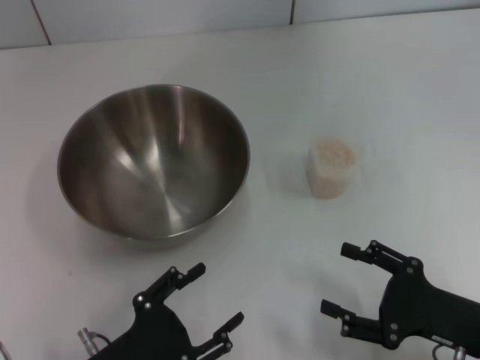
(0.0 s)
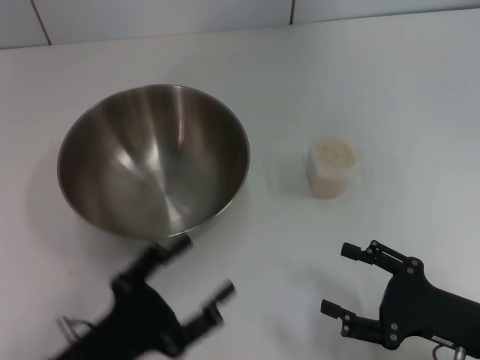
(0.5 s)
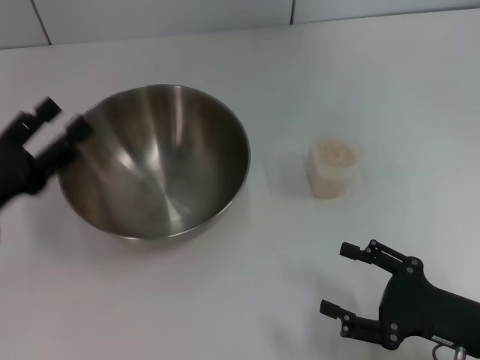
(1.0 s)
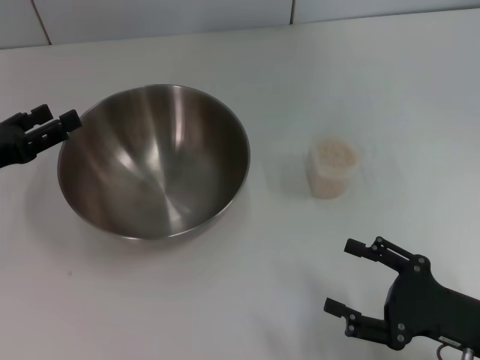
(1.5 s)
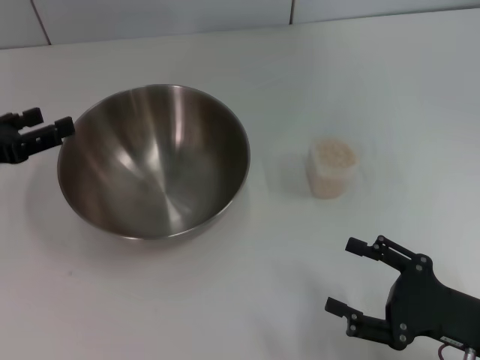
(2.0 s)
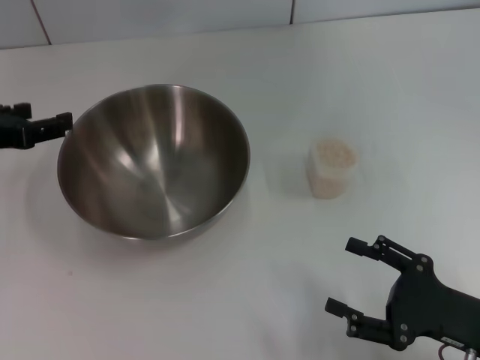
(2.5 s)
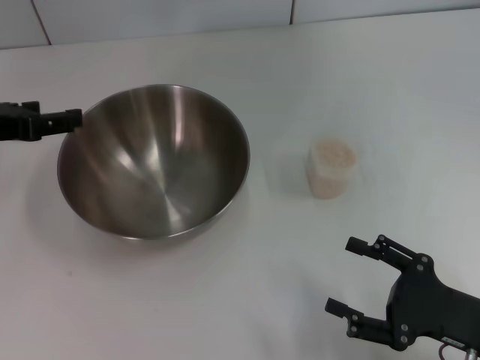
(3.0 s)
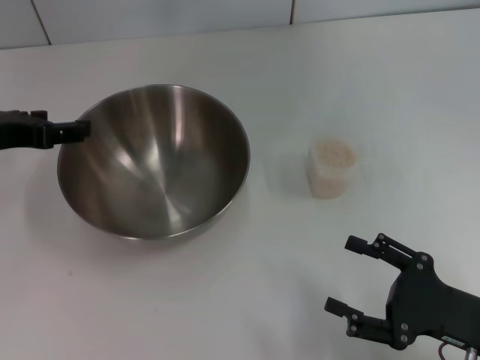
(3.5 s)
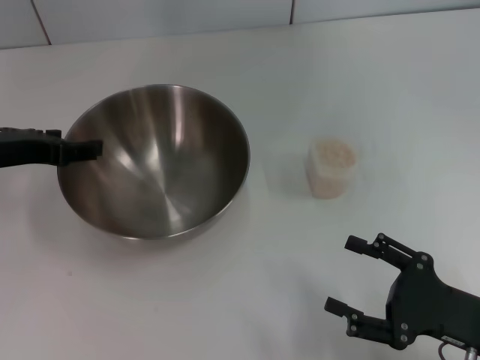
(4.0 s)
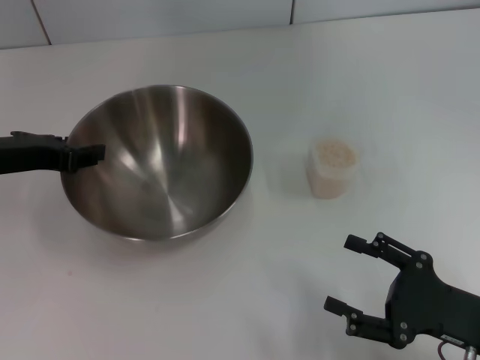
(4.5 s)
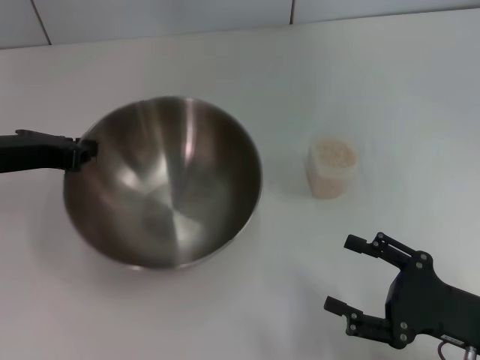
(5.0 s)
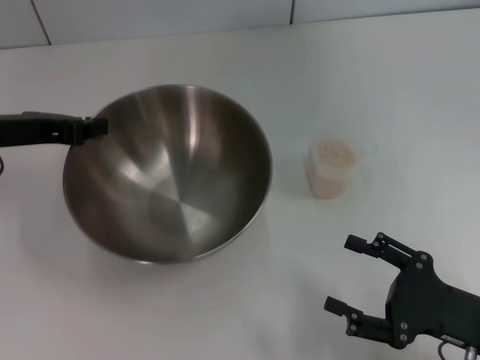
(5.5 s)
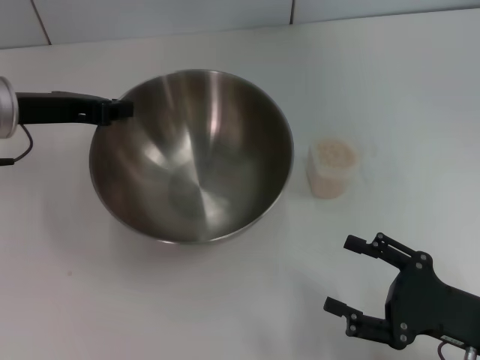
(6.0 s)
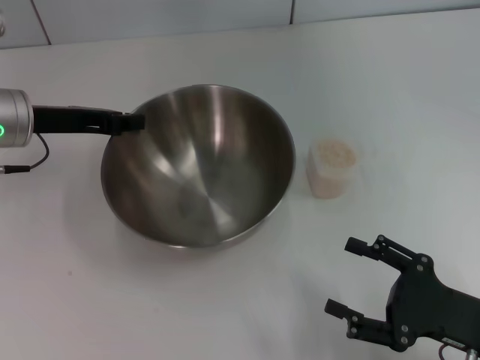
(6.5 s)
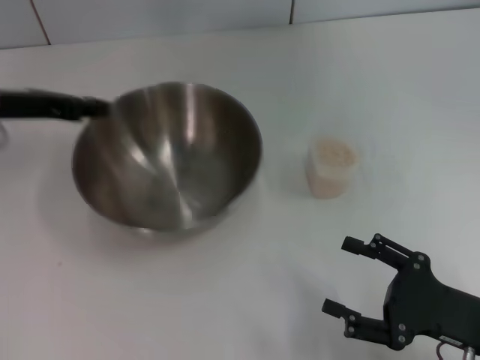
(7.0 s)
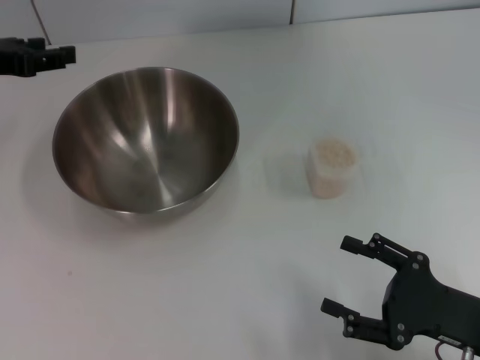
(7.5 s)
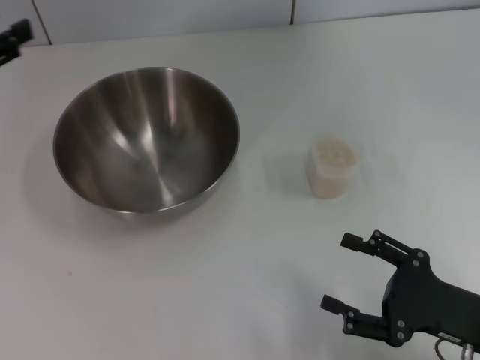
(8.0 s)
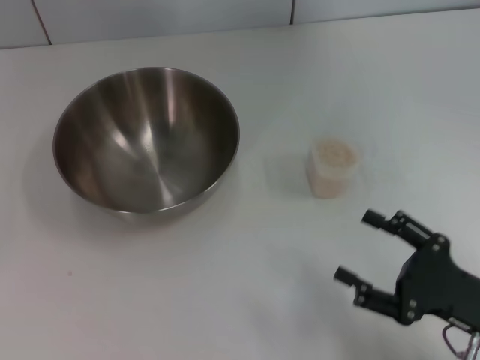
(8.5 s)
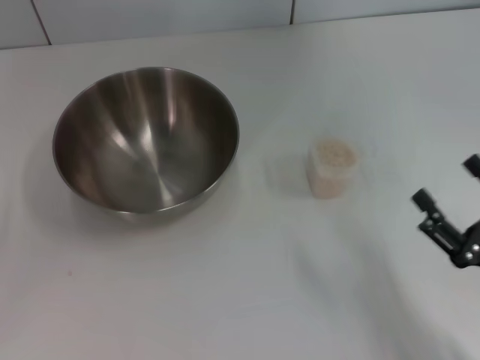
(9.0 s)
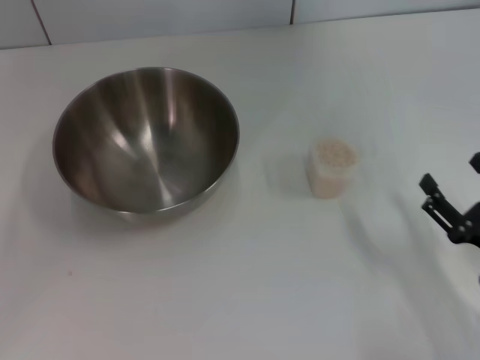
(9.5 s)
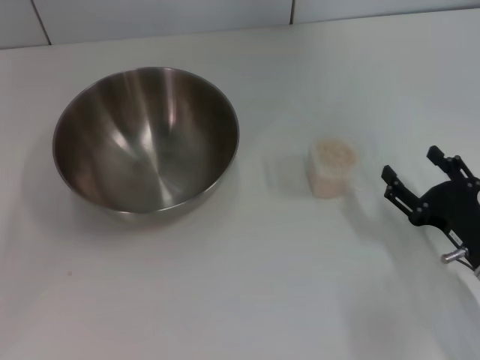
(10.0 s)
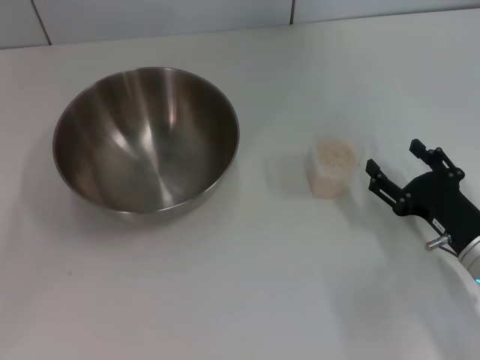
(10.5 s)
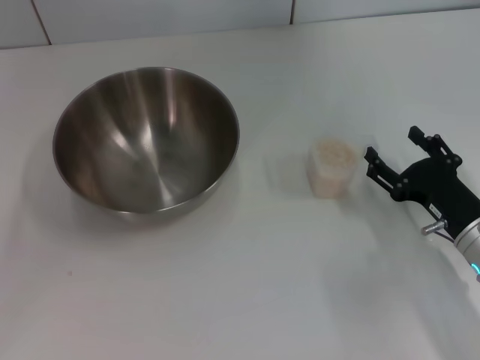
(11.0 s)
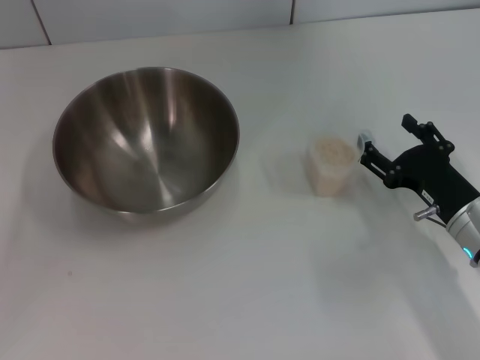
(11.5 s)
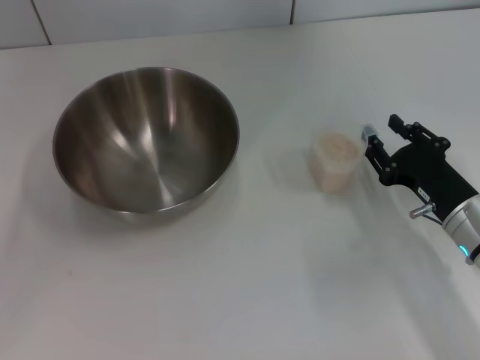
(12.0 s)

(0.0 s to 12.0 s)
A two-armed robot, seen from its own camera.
Task of the whole recording: Place the bowl in the middle of the table with one hand and pour the rice from the grain cup into it with the other hand.
Step, 0.0 s - 5.0 s: Pick up the bowl with the left gripper.
Step, 5.5 s - 7.5 s: Place the bowl in the center of view with the left gripper.
0.0 s - 2.0 s: The left gripper goes roughly 25 cm forward, to the left and upward.
2.0 s - 4.0 s: The left gripper heads to the right, covering roughly 5 cm.
4.0 s - 6.0 s: The left gripper moves some 5 cm, and closes.
6.0 s - 8.0 s: The left gripper shifts about 10 cm to the left, and opens up.
8.0 s - 10.0 s: The right gripper shifts by some 5 cm. The left gripper travels downward and backward by about 20 cm.
10.0 s - 12.0 s: The right gripper is displaced forward by about 5 cm.

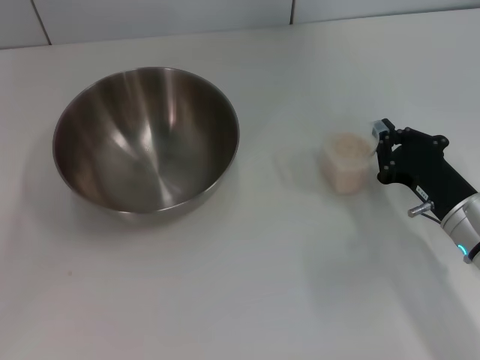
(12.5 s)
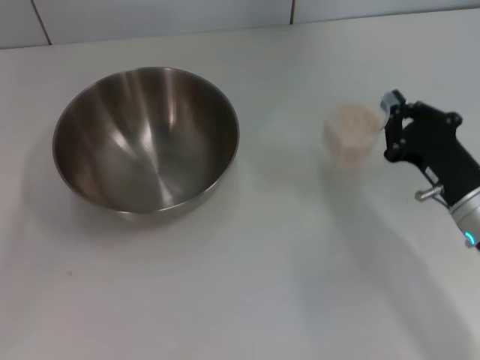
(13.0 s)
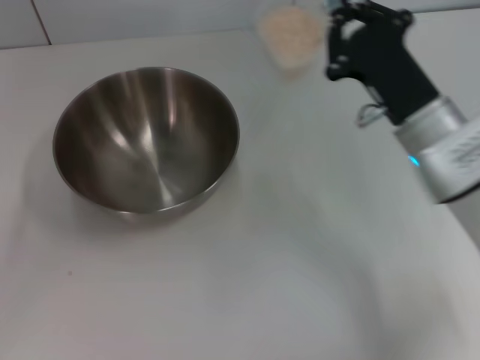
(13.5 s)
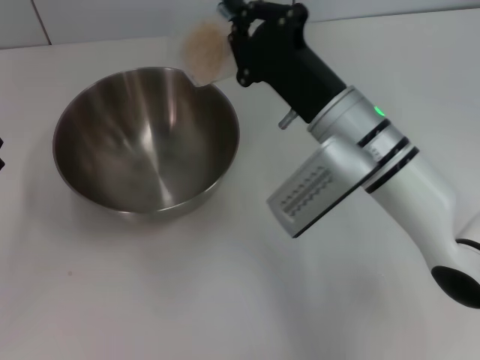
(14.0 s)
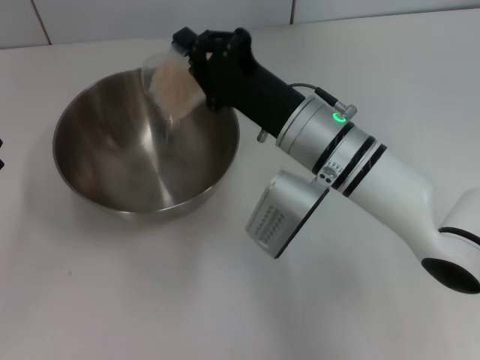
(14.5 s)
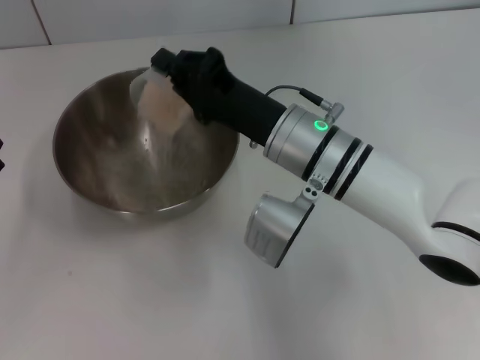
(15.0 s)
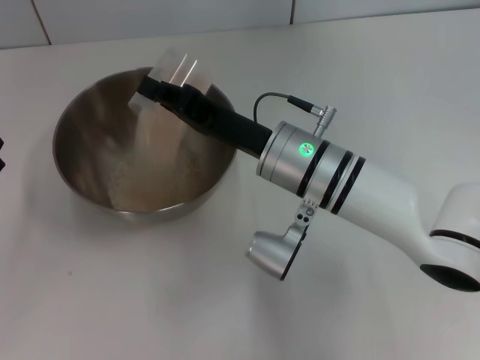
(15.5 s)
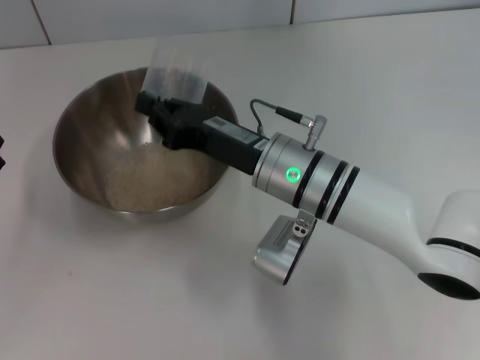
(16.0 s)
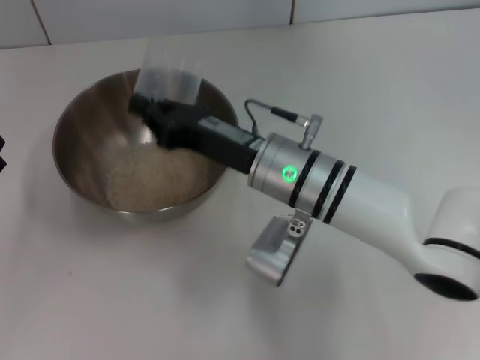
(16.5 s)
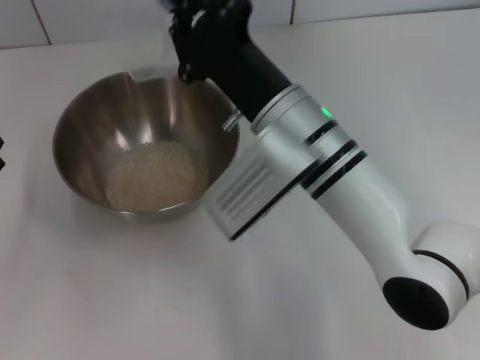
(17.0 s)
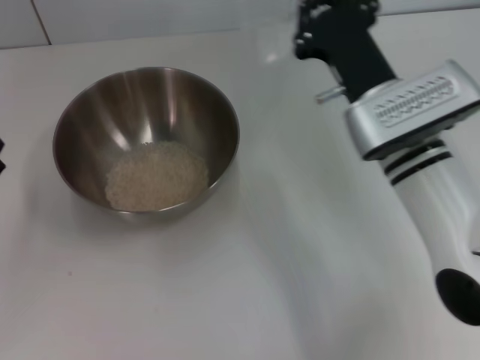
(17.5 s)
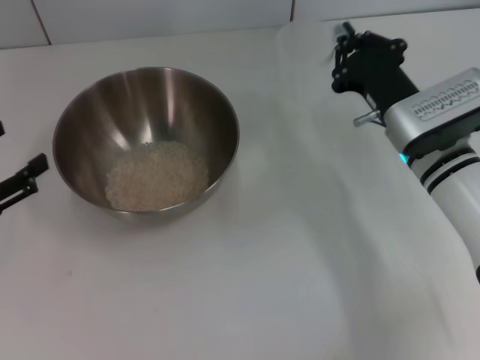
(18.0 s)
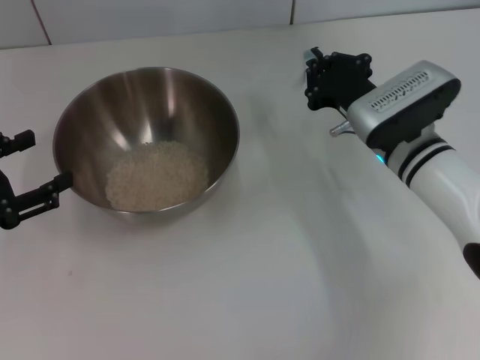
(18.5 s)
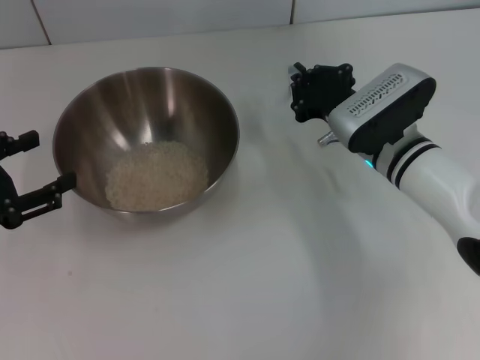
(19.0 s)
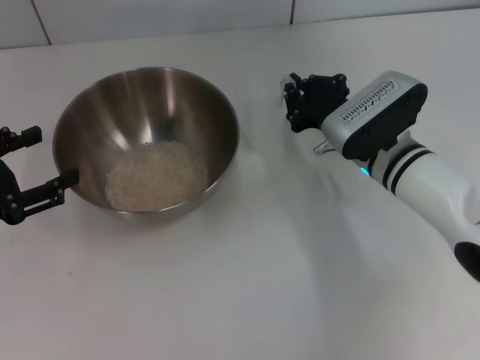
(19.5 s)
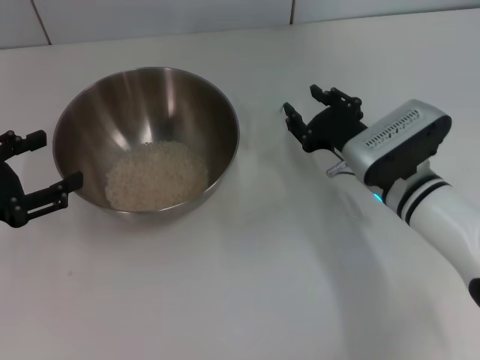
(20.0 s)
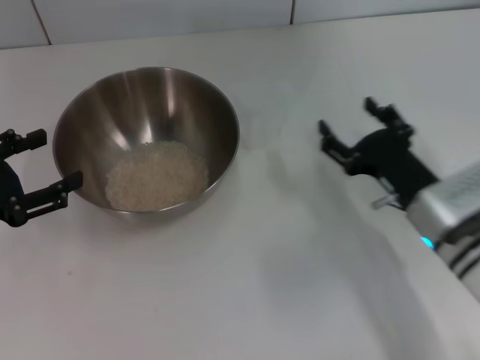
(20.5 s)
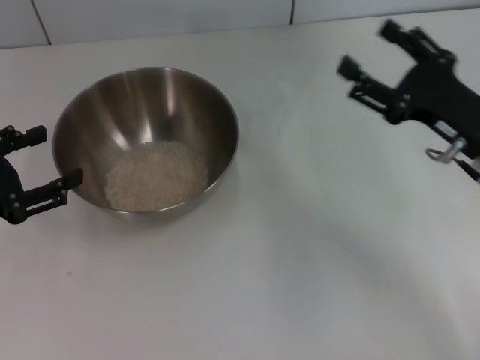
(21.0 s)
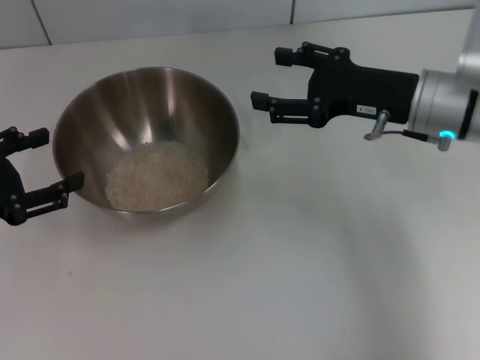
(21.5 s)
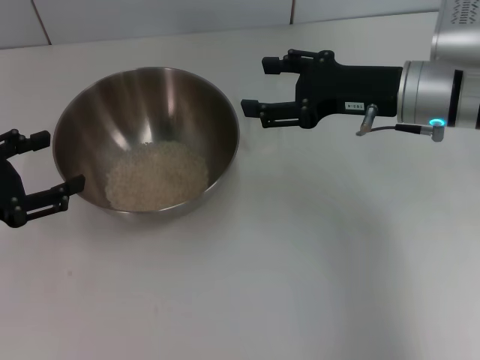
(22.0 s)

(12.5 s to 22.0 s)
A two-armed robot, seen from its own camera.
Task of the whole recording: Place the bowl in the middle of the table with one hand and pour the rice from the grain cup into it with the other hand.
Step, 13.5 s - 17.0 s: Pour the rice from the cup into the bowl with the right gripper.
Step, 17.5 s - 20.5 s: Place the cup on the table with the right gripper.
12.5 s - 14.5 s: The right gripper goes about 20 cm to the left, upward and forward.
16.5 s - 18.0 s: The right gripper travels to the right by approximately 15 cm; the left gripper goes some 5 cm upward.
18.0 s - 20.0 s: The grippers make only small movements.
20.0 s - 22.0 s: The right gripper is displaced upward by approximately 10 cm, and opens its fingers.

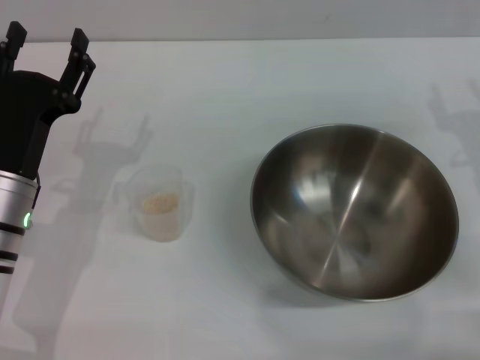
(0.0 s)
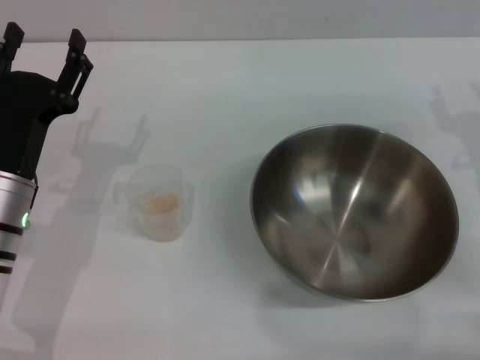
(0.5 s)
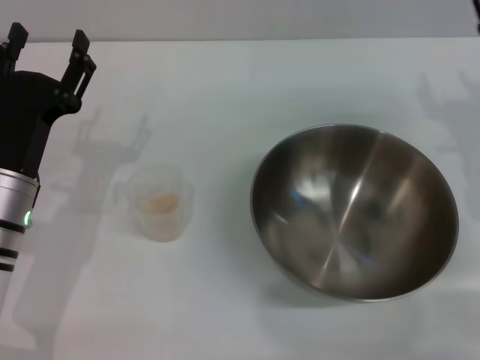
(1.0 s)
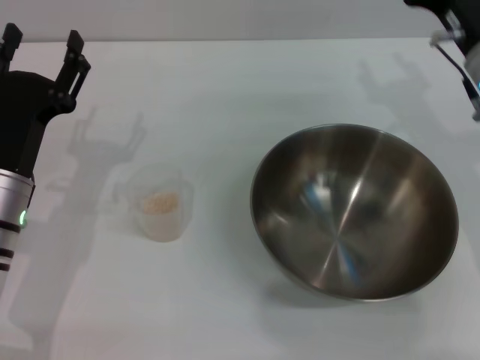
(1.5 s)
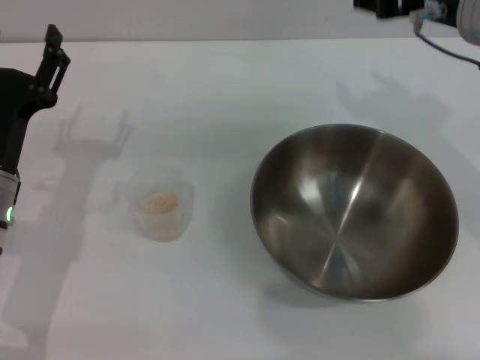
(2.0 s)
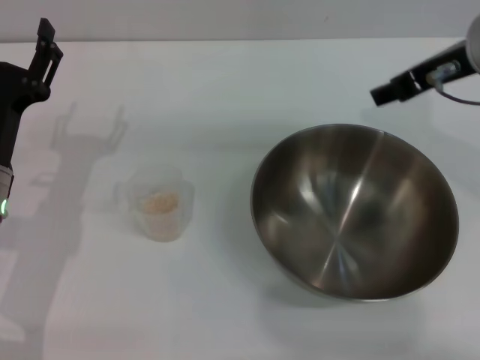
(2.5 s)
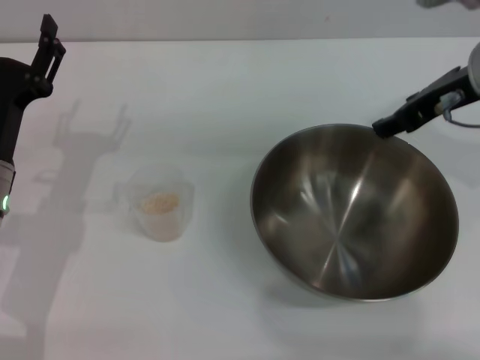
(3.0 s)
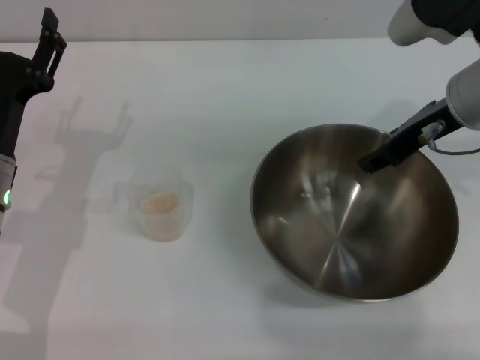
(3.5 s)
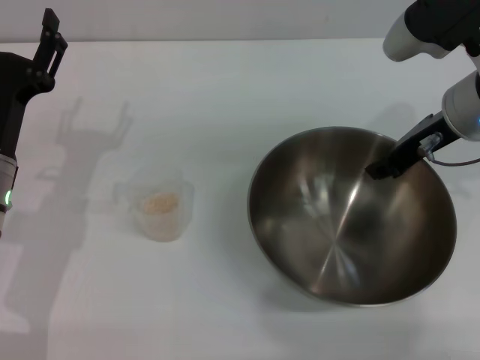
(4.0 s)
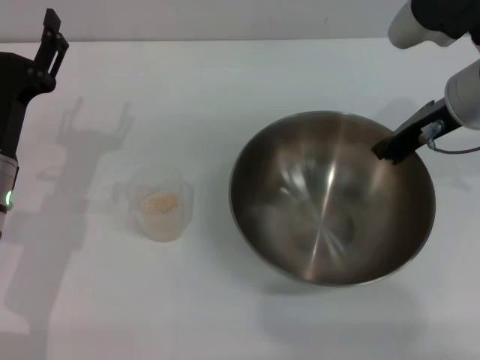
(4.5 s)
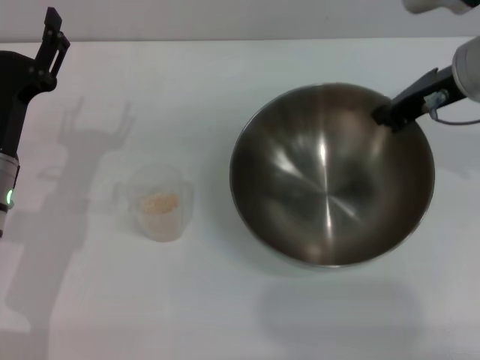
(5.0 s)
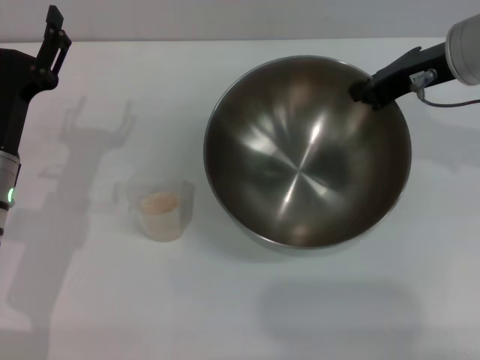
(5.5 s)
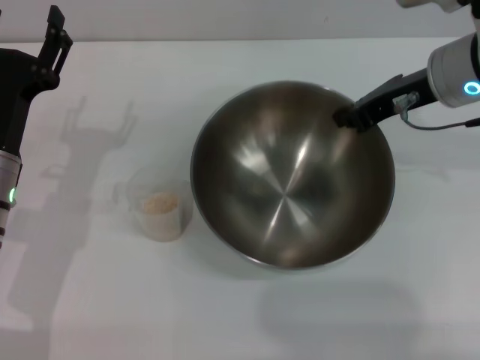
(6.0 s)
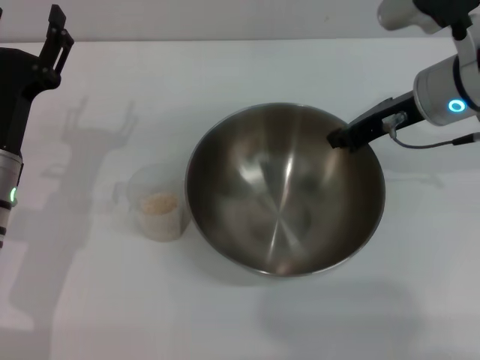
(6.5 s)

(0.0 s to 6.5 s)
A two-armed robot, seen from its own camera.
Task of the whole recording: Place the bowl in the middle of the table with one hand and pour the rice from the grain cup into it with the other hand.
Step, 0.0 s - 5.0 s: Pick up the bowl with the right gripper.
0.0 s - 2.0 s: The right gripper moves upward and to the left, approximately 20 cm.
2.0 s - 4.5 s: The right gripper travels downward by about 5 cm, and closes up.
